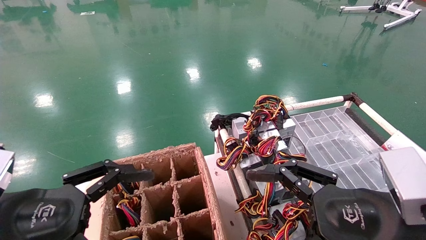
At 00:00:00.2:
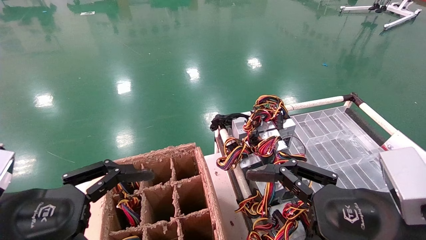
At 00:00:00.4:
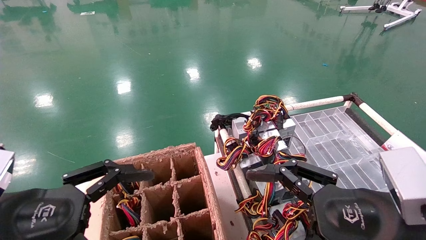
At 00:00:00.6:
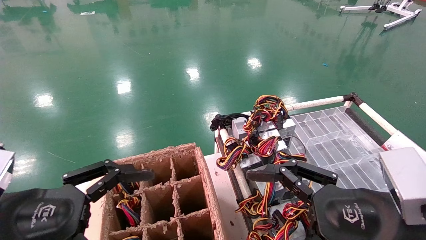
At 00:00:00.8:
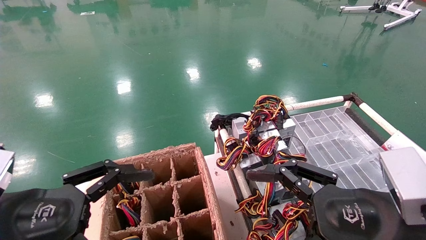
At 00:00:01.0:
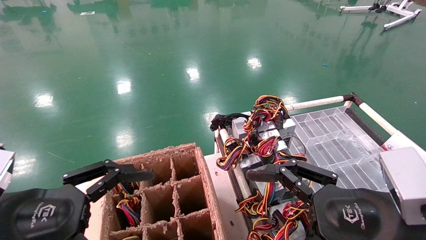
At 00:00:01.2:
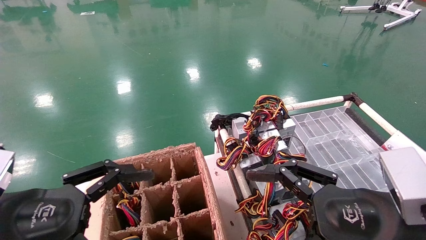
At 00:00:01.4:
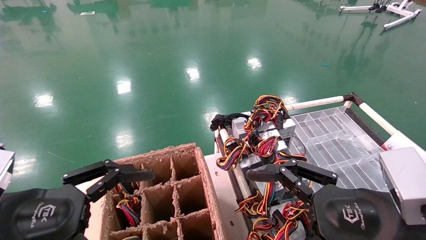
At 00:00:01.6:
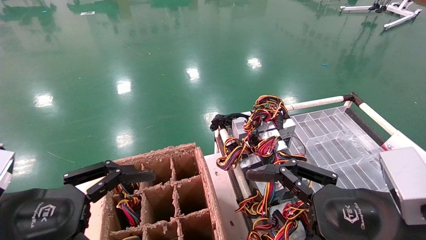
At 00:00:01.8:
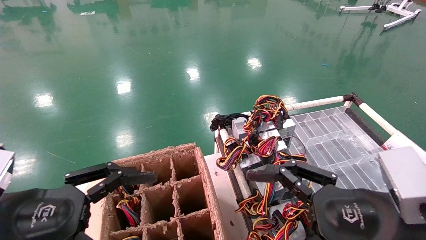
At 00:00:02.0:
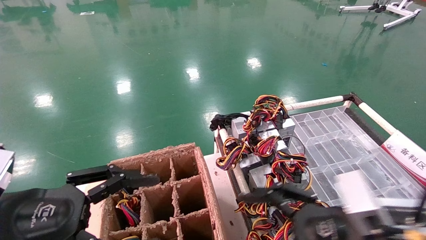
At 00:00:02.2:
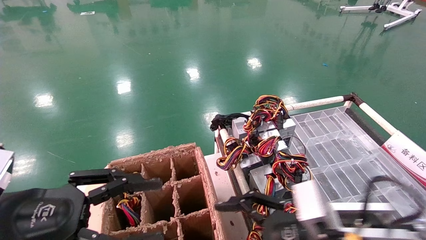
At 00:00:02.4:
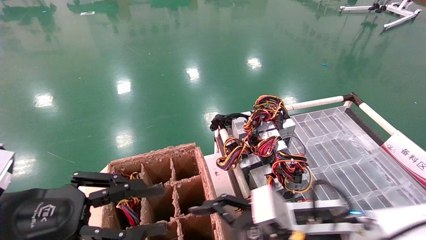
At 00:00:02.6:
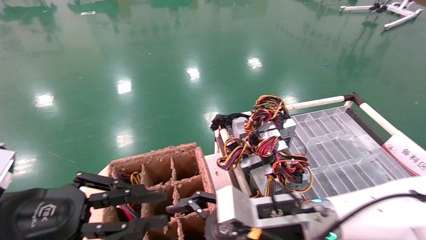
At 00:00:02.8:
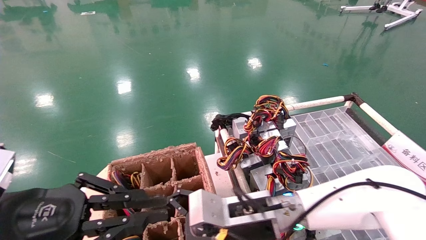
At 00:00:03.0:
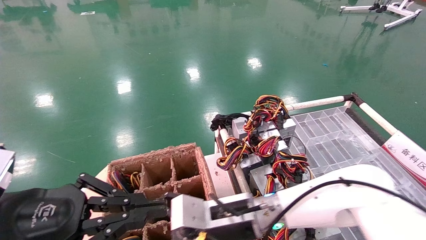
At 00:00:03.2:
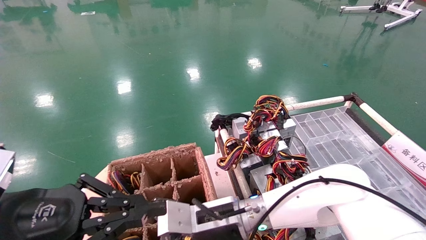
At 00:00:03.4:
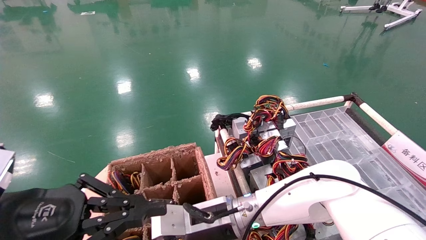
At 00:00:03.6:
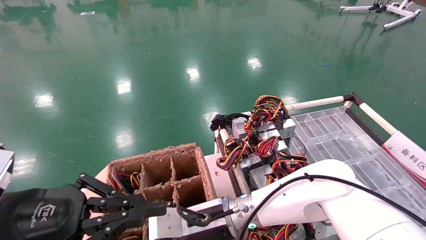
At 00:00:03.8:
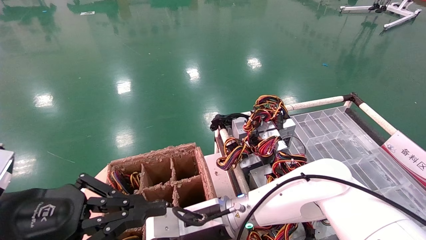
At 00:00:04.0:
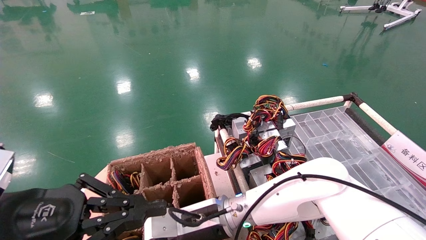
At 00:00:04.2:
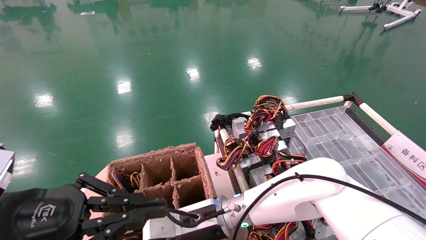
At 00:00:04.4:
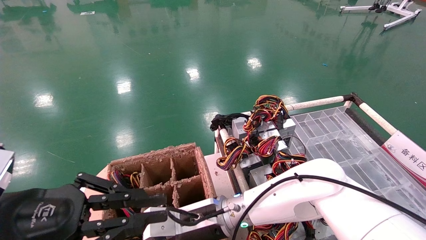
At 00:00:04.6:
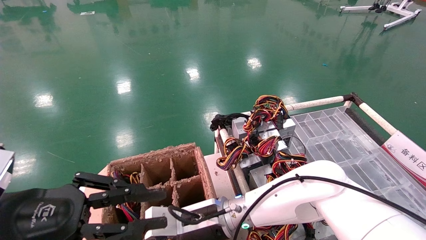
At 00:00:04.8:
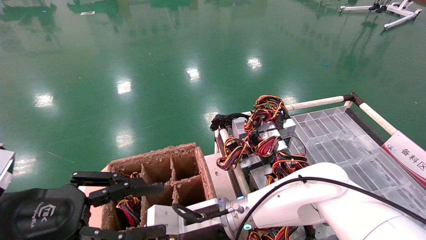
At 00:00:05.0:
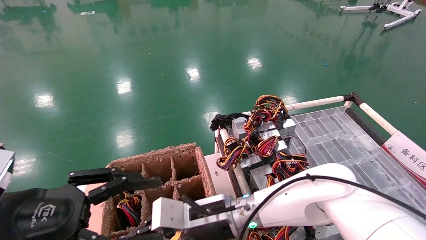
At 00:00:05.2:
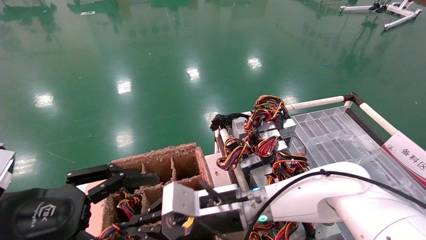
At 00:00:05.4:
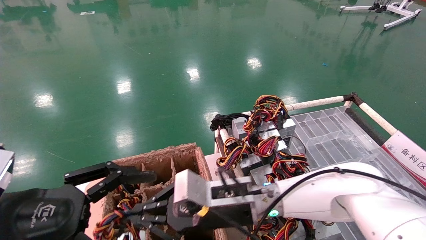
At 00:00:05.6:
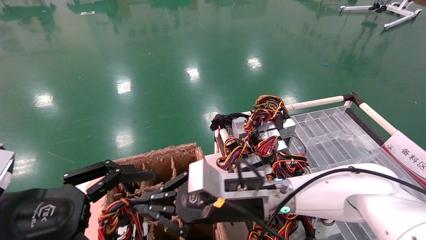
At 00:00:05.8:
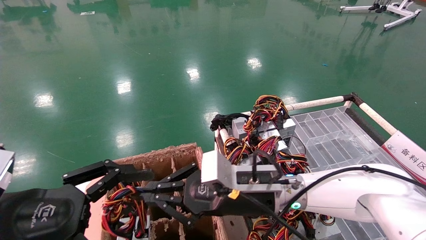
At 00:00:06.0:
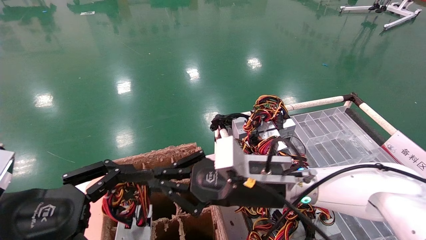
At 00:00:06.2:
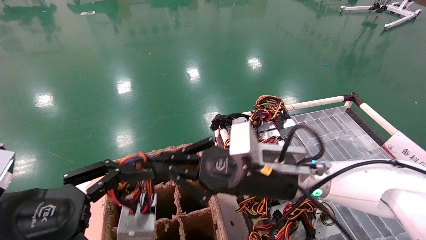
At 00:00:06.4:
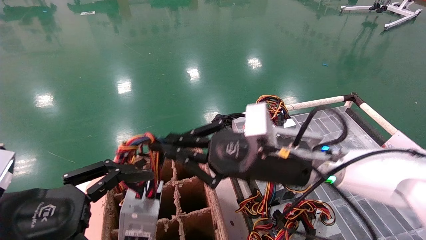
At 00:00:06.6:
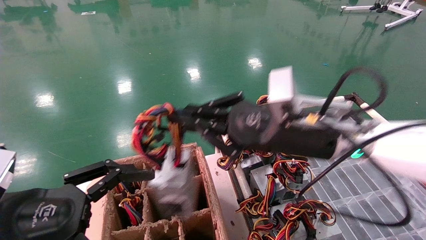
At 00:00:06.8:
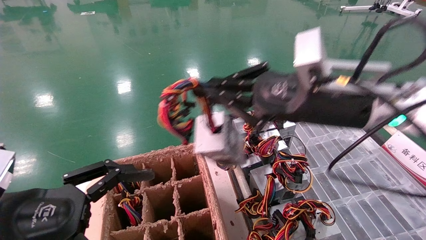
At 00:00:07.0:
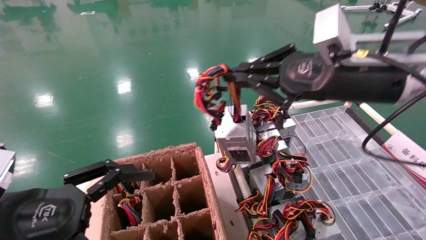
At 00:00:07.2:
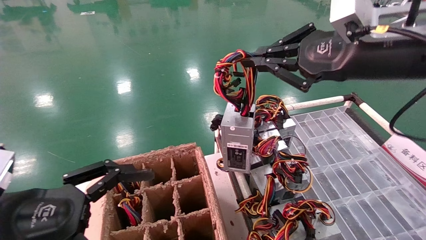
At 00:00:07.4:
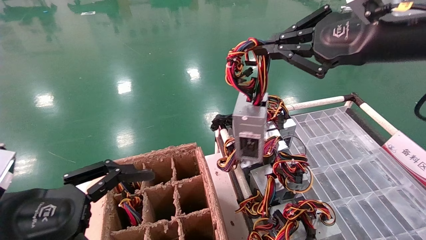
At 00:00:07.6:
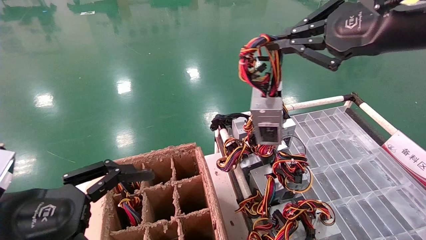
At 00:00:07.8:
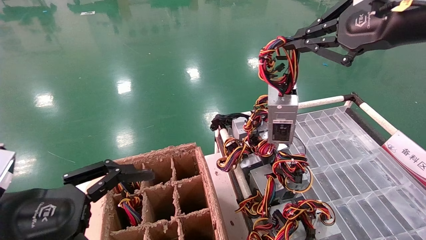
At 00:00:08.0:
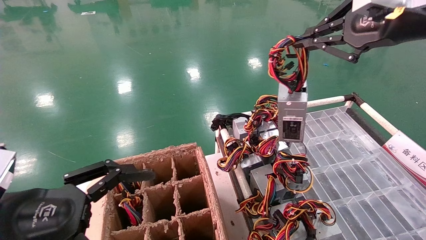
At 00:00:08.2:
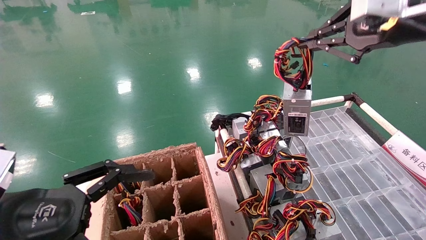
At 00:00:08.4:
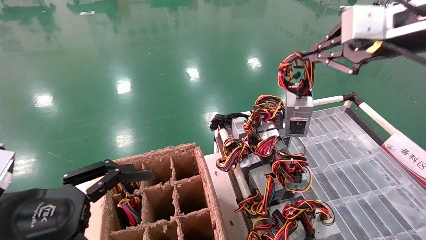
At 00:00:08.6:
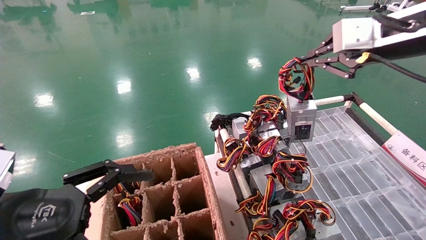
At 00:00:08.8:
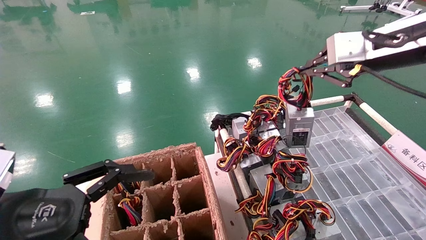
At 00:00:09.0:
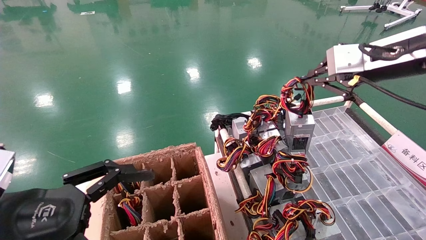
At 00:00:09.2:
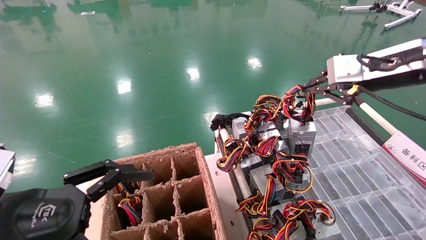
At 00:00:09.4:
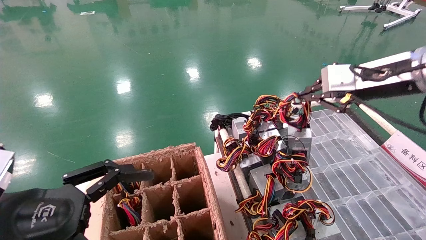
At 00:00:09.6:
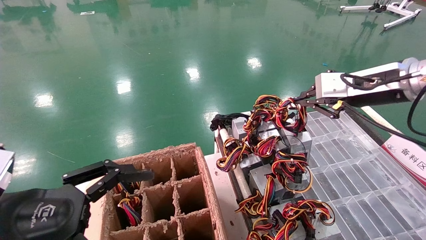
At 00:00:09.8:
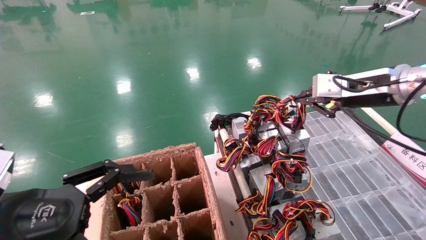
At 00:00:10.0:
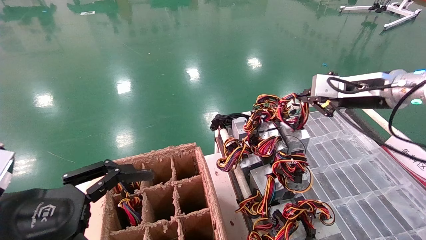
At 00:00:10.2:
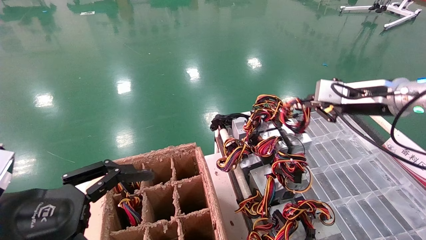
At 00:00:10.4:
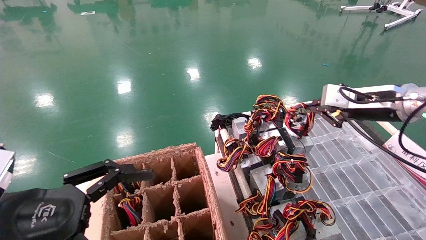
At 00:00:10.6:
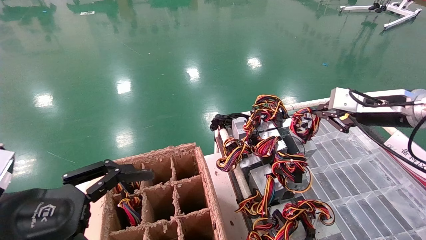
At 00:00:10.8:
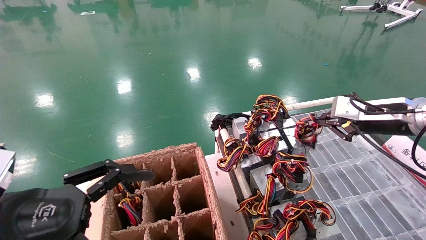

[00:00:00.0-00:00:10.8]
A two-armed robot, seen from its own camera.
Step, 00:00:01.8 to 00:00:04.6: Grab and lift the power supply from the large box.
00:00:00.0 to 00:00:01.6: Neither gripper changes place.
00:00:01.6 to 00:00:03.0: The right gripper is displaced to the left, forward and downward by some 25 cm. The left gripper closes up.
00:00:03.0 to 00:00:04.6: The right gripper shifts by roughly 5 cm, and closes its fingers.
00:00:04.6 to 00:00:06.2: The left gripper opens; the right gripper travels upward and to the right by approximately 15 cm.
00:00:06.2 to 00:00:07.8: The right gripper shifts about 30 cm upward and to the right.
00:00:07.8 to 00:00:09.2: The right gripper shifts approximately 10 cm forward and downward.
00:00:09.2 to 00:00:10.8: The right gripper shifts roughly 10 cm downward, forward and to the right.

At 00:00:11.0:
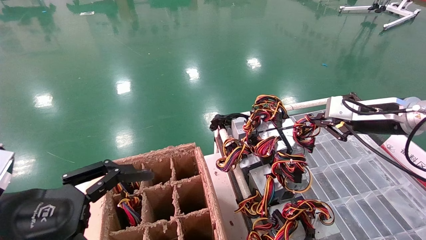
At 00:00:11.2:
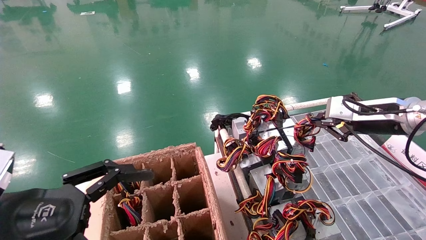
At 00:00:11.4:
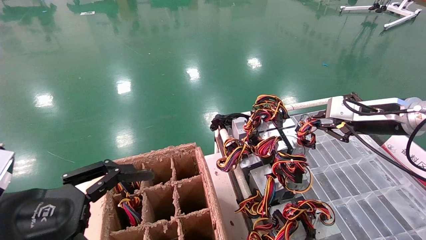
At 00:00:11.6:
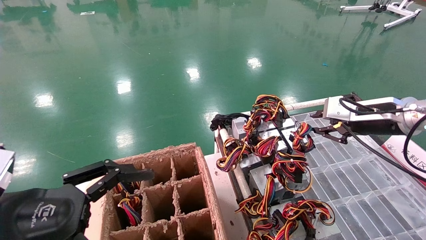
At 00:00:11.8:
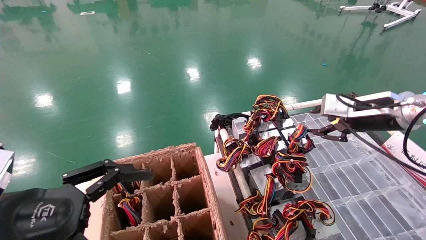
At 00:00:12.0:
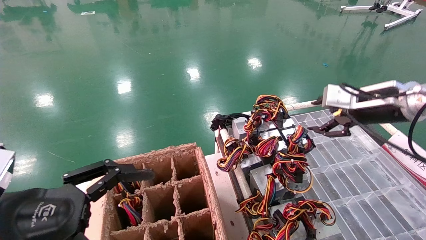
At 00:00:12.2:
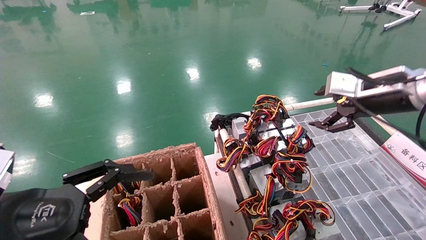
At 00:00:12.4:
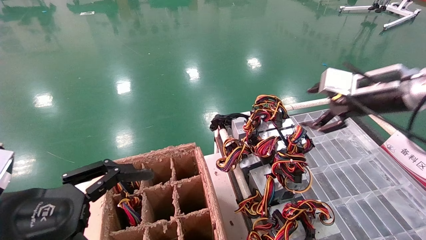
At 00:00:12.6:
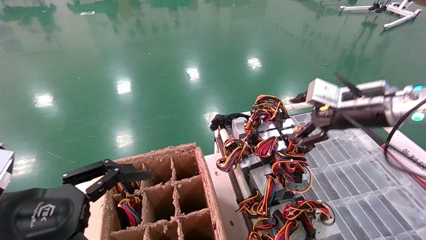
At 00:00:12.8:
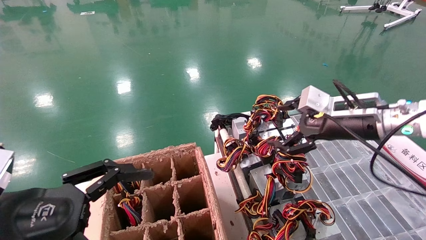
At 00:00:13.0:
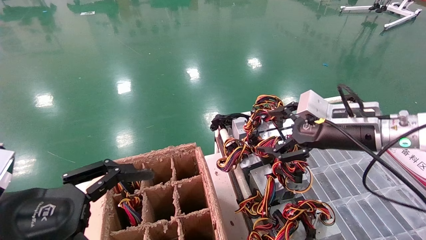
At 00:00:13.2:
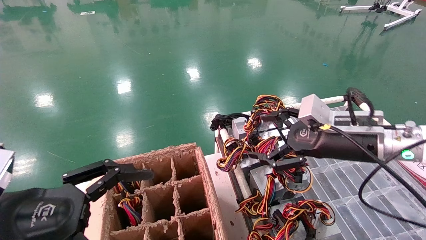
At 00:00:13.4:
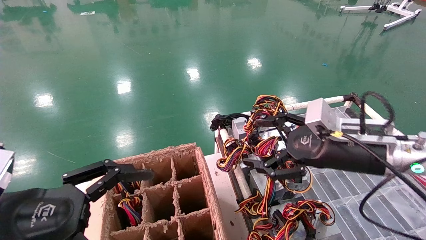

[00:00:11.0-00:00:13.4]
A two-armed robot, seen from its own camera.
00:00:11.0 to 00:00:12.2: The right gripper moves roughly 5 cm, and opens its fingers.
00:00:12.2 to 00:00:13.4: The right gripper travels downward, to the left and backward by about 15 cm.
